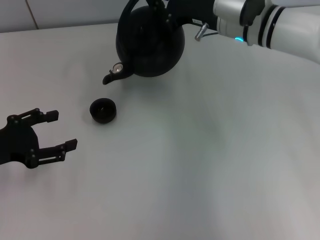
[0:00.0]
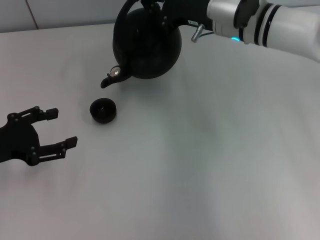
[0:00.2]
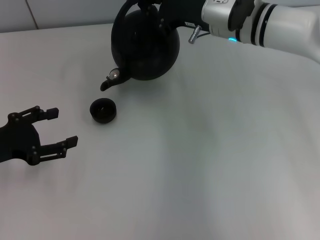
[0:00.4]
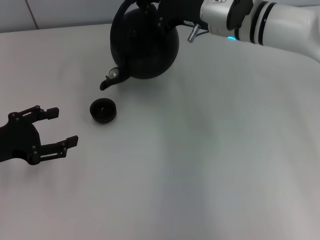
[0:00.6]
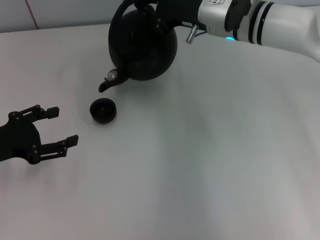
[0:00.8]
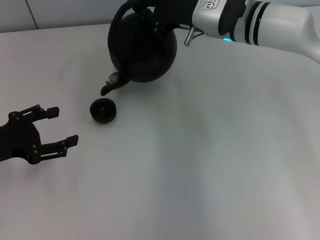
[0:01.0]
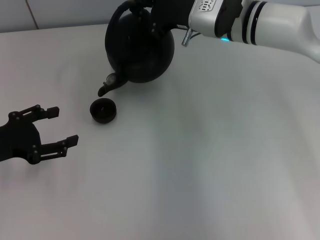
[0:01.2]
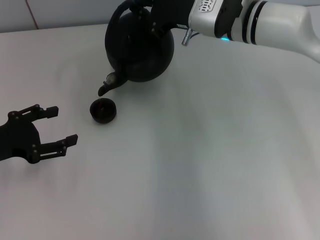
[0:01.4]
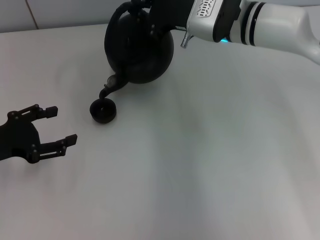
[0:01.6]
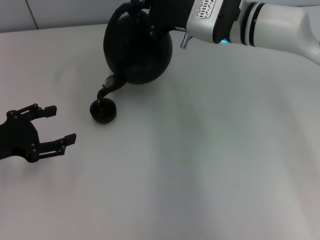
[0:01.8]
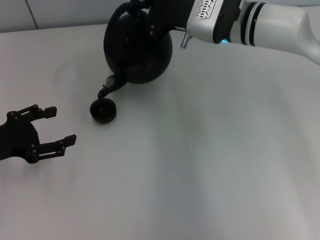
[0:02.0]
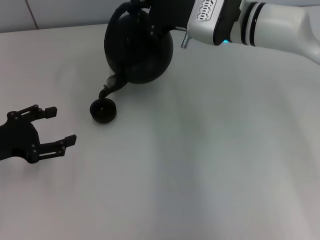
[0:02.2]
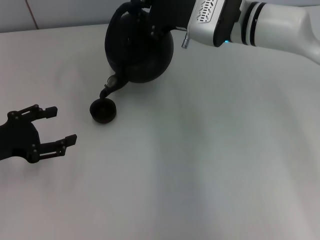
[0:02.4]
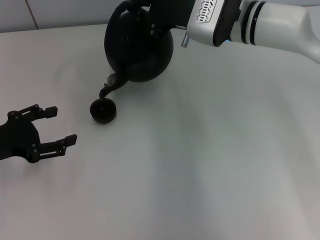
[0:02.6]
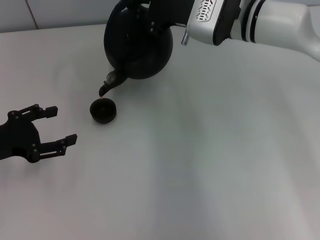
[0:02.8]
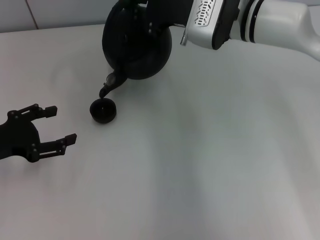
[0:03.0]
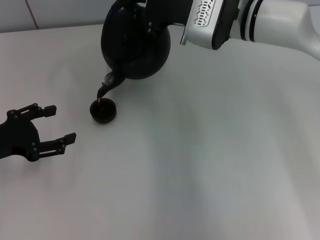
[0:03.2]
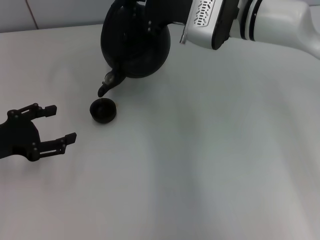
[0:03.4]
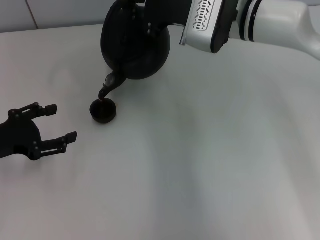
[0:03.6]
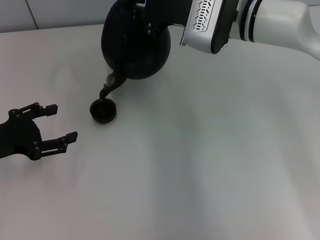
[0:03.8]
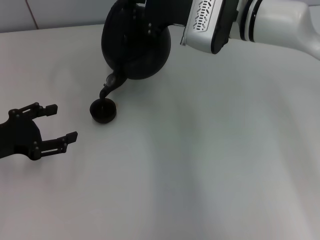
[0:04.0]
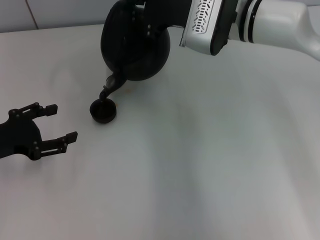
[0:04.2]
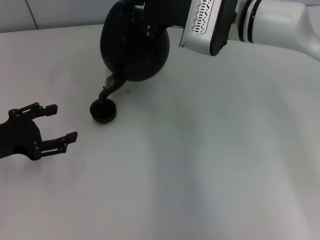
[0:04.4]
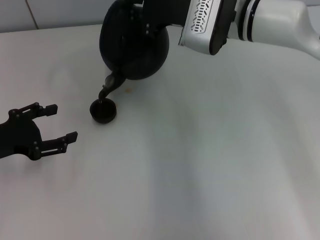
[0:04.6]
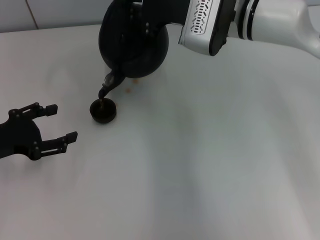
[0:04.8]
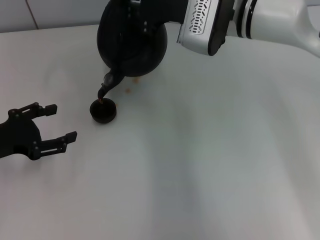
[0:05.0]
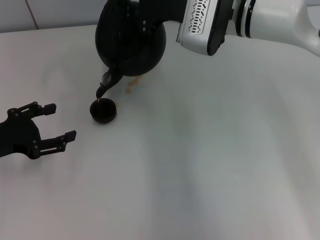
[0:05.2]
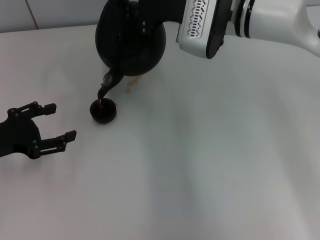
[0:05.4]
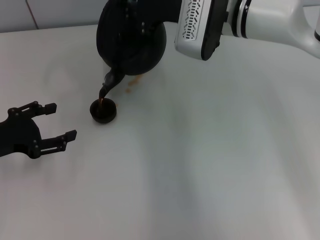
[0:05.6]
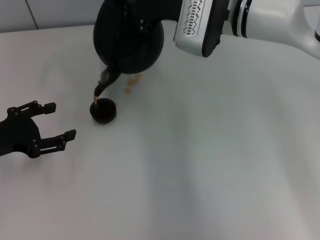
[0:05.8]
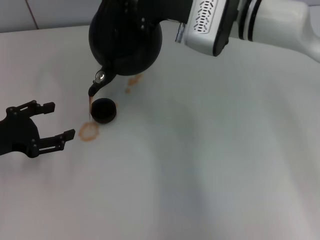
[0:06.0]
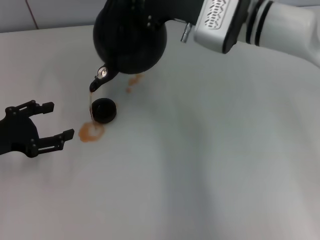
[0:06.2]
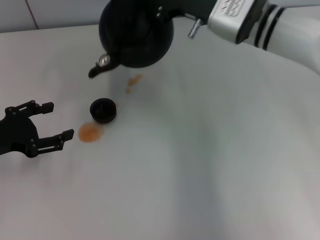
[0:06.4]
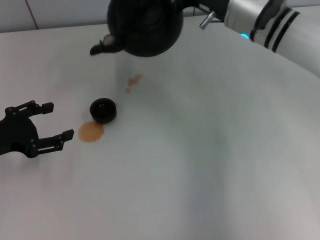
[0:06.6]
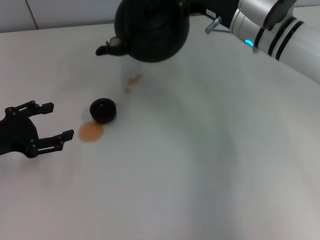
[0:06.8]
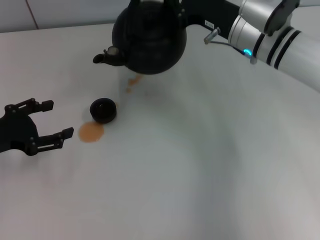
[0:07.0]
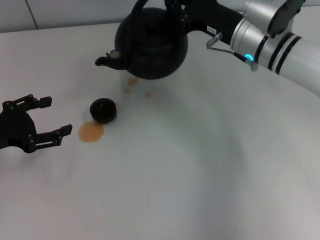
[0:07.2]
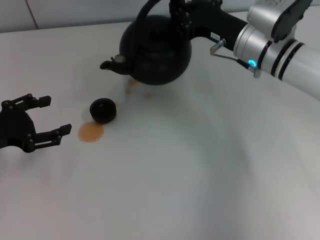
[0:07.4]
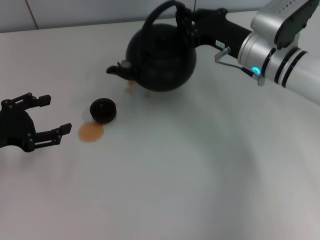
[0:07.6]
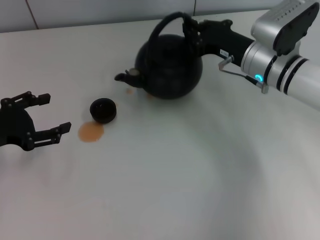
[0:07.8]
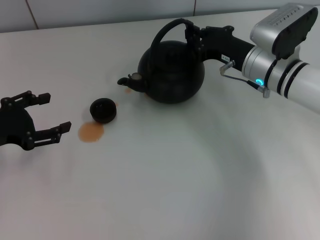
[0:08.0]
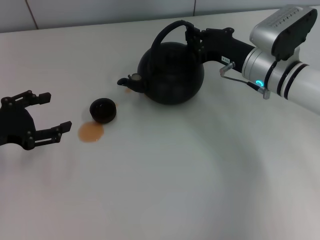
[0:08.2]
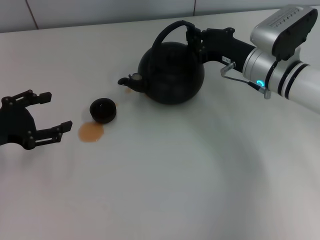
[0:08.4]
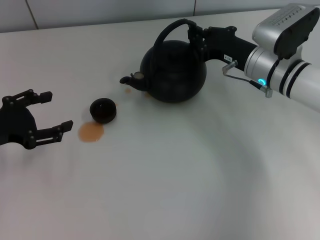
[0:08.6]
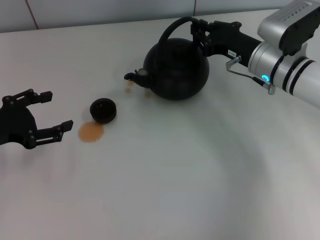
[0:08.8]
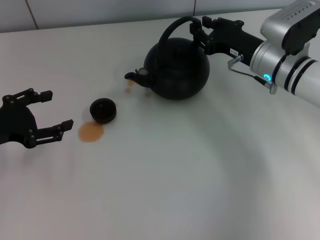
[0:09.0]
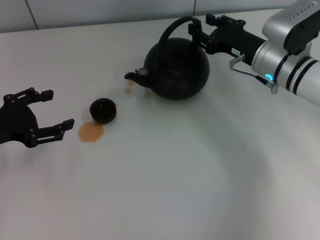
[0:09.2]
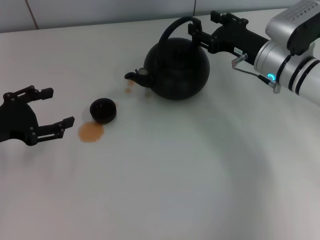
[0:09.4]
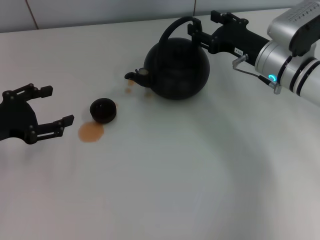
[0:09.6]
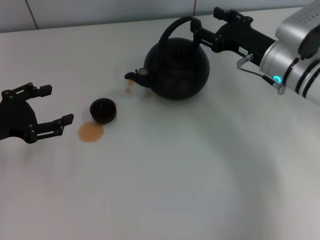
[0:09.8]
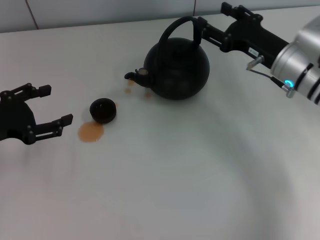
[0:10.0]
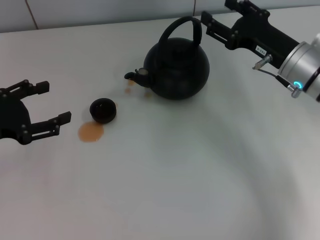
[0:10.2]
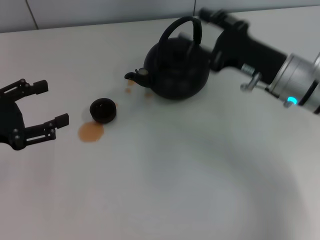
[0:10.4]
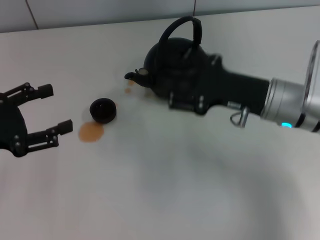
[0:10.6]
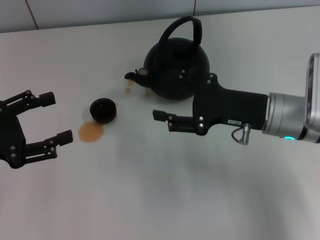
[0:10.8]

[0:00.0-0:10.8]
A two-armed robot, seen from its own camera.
Task of the whole recording: Grasp the handle of the teapot with one hand and pour tea into the teacup.
Step, 0:07.0 to 0:10.2: Put down the teapot with the right gripper.
0:00.0 to 0:01.6: The grippers make only small movements.
0:01.6 to 0:03.0: The grippers make only small movements.
0:03.0 to 0:04.6: Both grippers stay put.
0:04.6 to 0:06.2: The grippers move only a little.
0:06.2 to 0:07.8: The right gripper travels downward and to the right by about 10 cm.
0:07.8 to 0:09.2: There are only small adjustments of the grippers.
0:09.2 to 0:10.8: The right gripper is displaced backward by some 10 cm, and opens its fingers. Meanwhile the left gripper shifts by some 5 cm.
